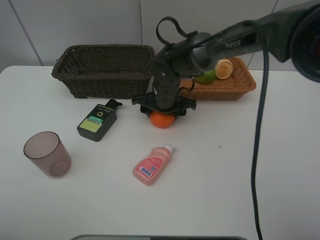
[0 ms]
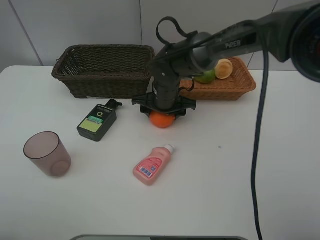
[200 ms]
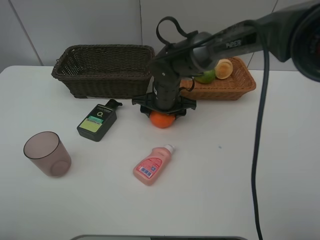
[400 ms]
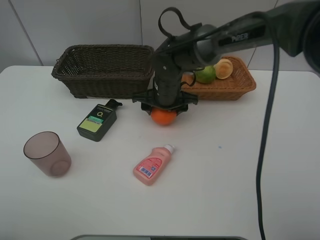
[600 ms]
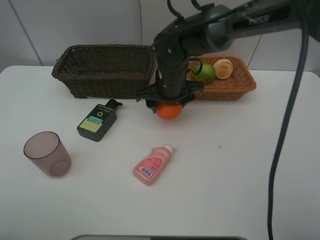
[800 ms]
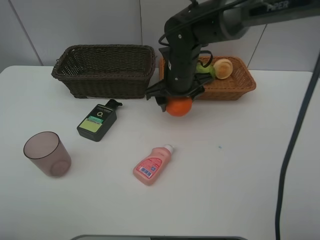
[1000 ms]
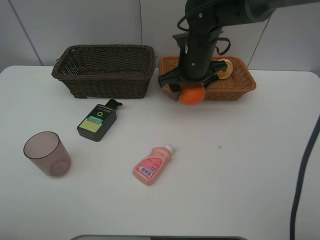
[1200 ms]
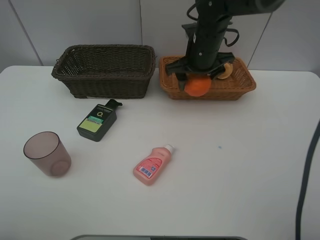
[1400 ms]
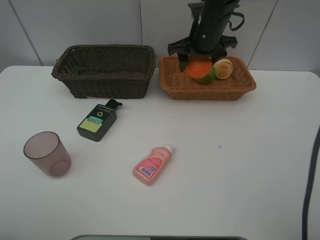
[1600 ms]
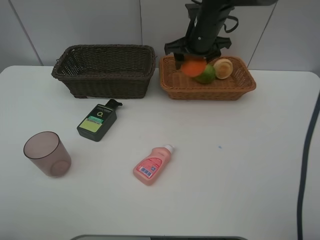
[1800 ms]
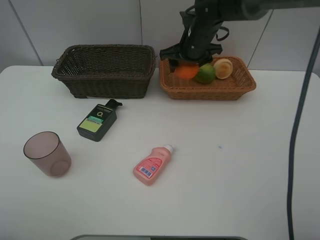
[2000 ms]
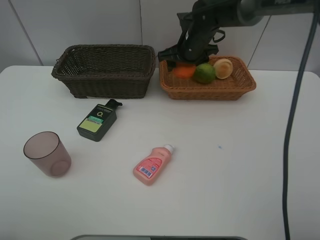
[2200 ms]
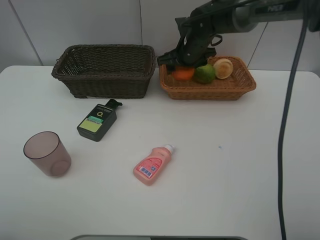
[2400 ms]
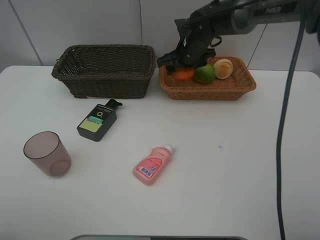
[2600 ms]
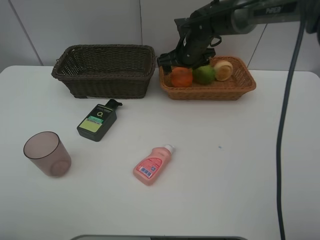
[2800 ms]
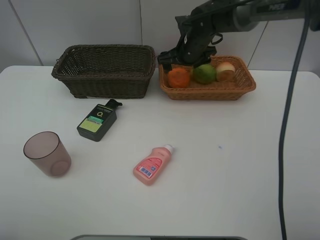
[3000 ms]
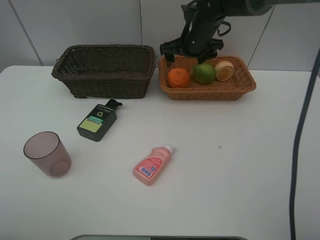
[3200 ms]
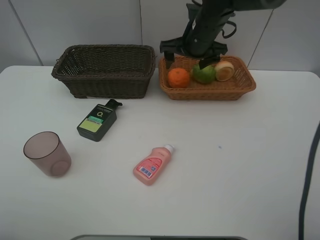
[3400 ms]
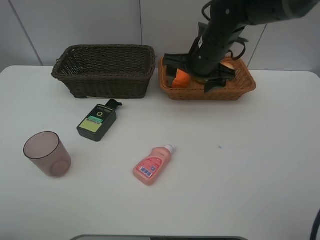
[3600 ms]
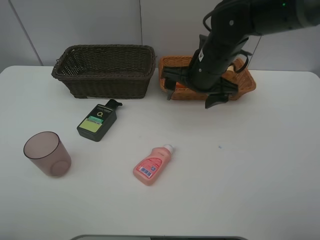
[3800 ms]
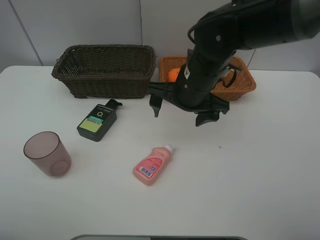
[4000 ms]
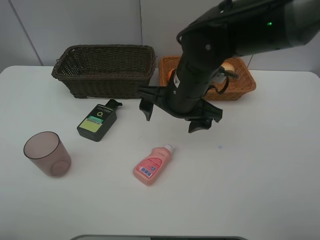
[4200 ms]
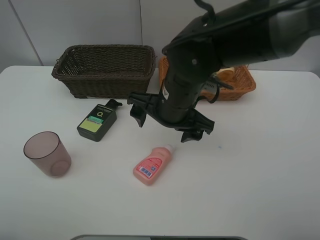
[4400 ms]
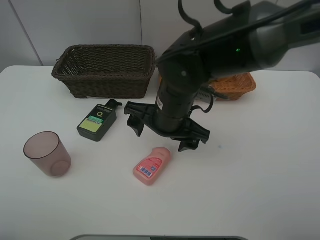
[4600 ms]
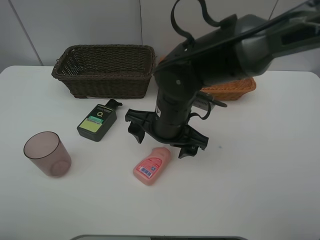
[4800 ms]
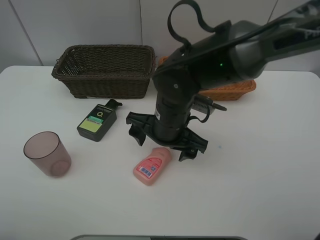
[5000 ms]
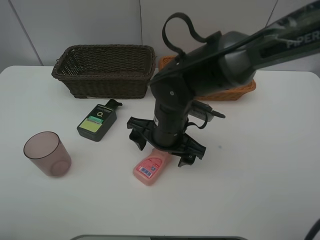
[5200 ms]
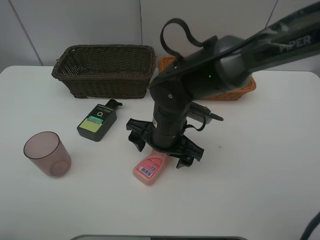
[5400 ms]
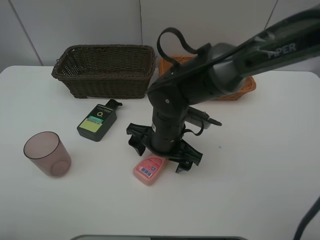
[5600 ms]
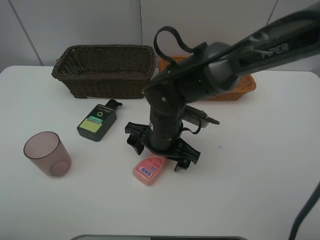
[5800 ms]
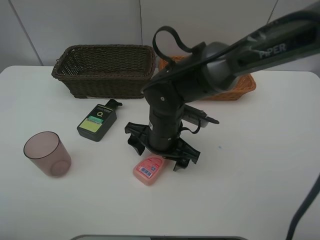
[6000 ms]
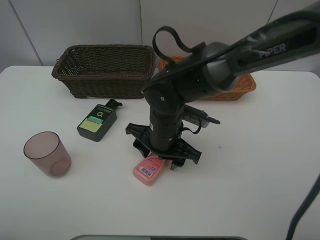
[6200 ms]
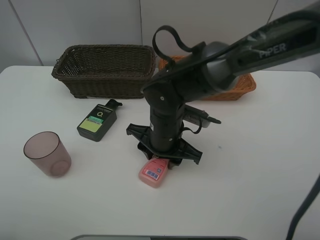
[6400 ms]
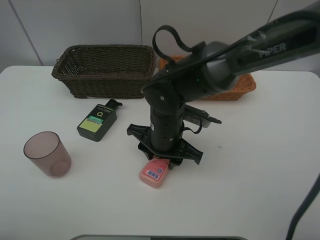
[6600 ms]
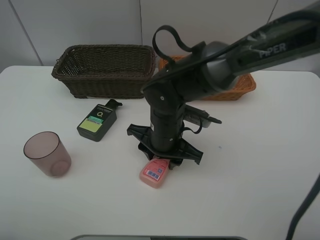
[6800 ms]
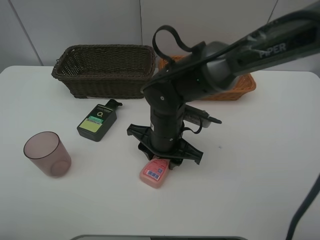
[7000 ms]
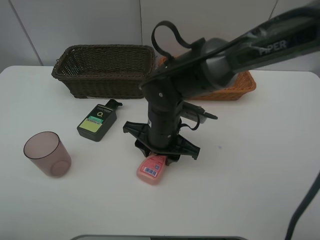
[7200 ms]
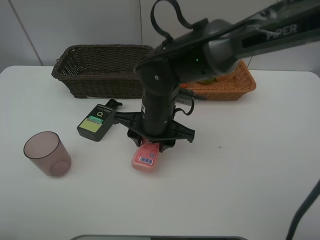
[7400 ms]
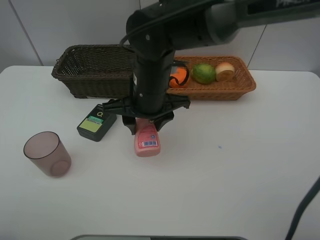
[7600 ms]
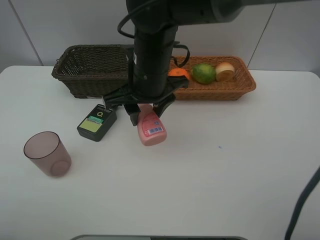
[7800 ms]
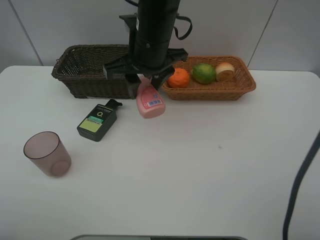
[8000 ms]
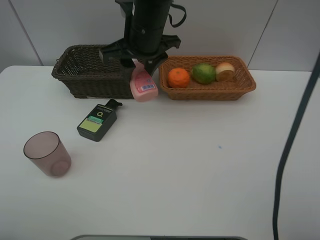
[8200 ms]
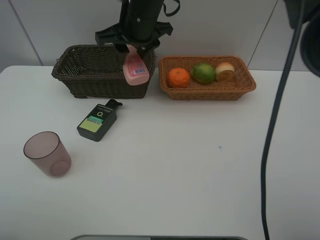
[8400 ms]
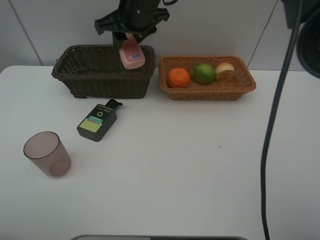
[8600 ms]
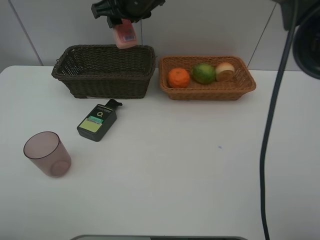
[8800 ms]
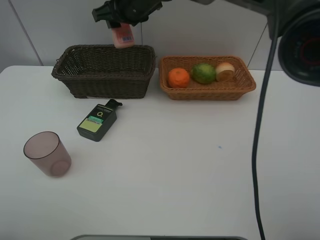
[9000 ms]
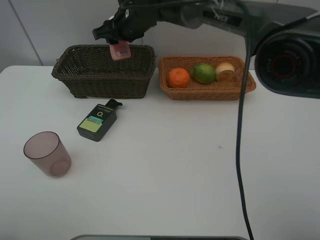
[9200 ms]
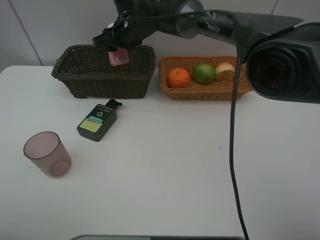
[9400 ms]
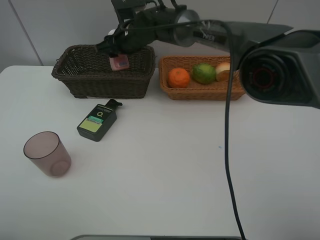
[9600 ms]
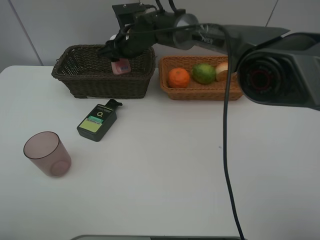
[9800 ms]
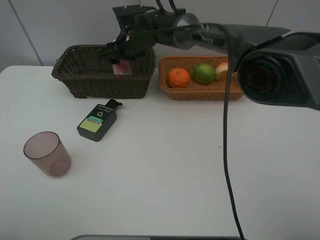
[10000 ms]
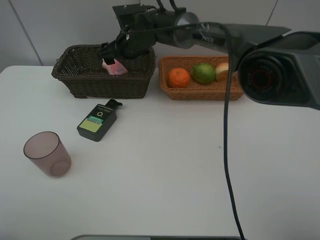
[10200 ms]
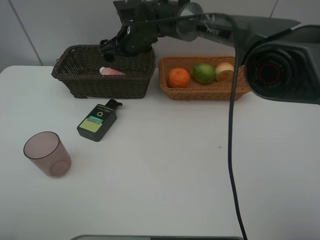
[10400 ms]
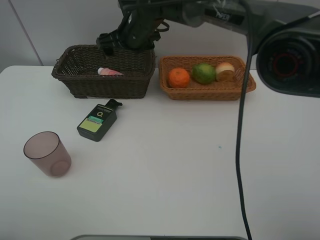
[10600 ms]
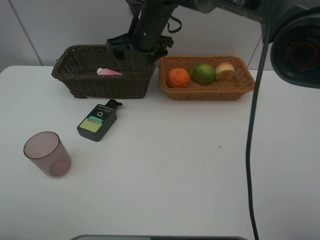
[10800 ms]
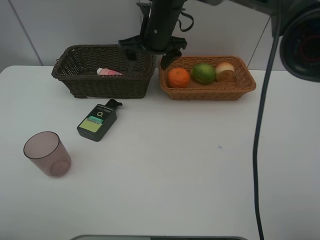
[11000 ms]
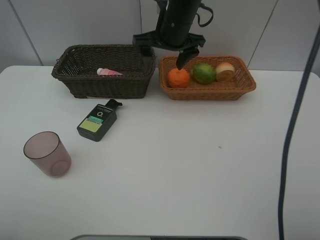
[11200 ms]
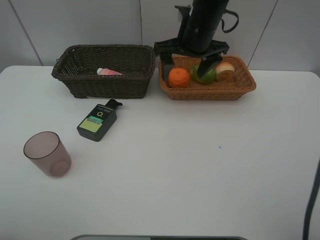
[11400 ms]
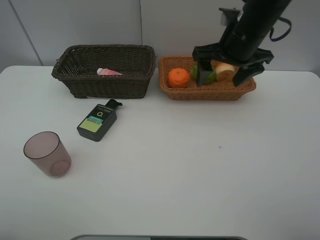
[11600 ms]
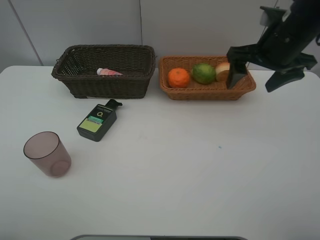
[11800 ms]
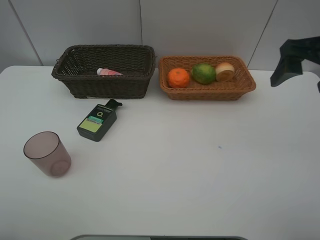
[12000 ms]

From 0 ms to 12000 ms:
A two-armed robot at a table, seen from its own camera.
Task of the whole recording: place multiple objects separately in different baskets.
From 0 ms to 1600 ms: The right gripper heads upward, to the right and forward, covering some 15 cm.
From 1600 ms to 3000 ms: The right gripper goes some 5 cm downward, and opens up.
From 3000 ms to 4400 ms: The right gripper heads backward, covering about 20 cm.
From 4400 ms to 6000 ms: The right gripper moves downward, about 5 cm.
From 6000 ms to 7600 ms: The right gripper moves upward, about 10 cm, and closes up.
From 7600 ms to 9000 ms: The right gripper heads forward and upward, covering roughly 20 cm.
From 9000 ms to 10400 ms: The right gripper is displaced downward by roughly 5 cm, and opens up.
From 10400 ms to 12000 ms: The right gripper moves to the right and backward, some 40 cm.

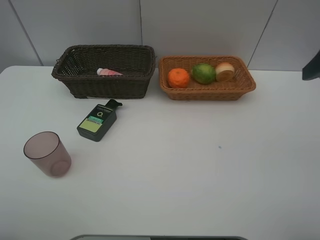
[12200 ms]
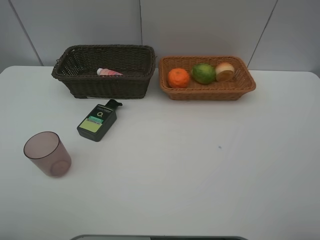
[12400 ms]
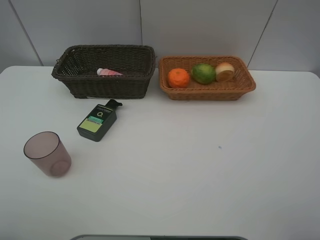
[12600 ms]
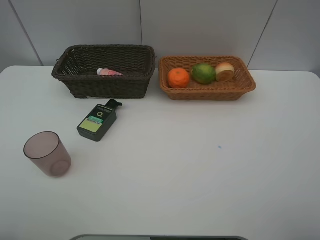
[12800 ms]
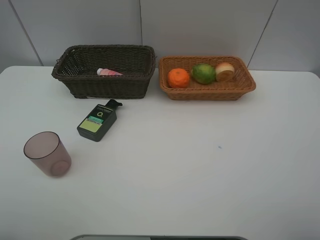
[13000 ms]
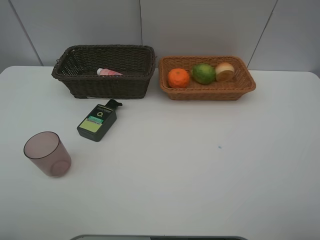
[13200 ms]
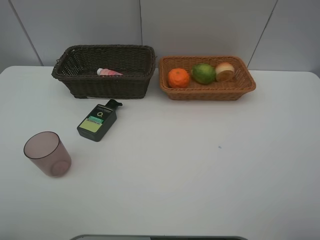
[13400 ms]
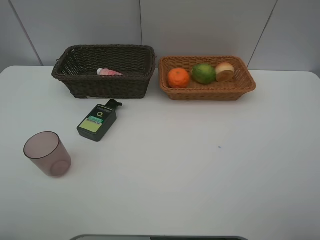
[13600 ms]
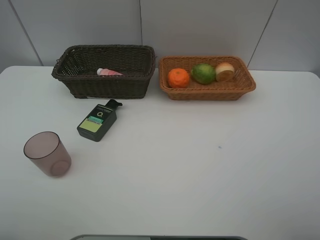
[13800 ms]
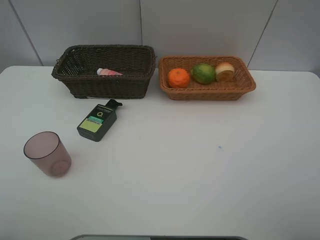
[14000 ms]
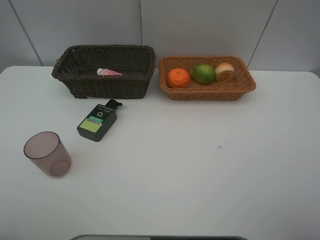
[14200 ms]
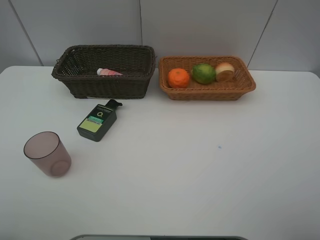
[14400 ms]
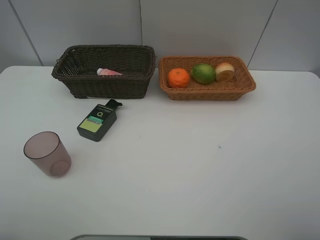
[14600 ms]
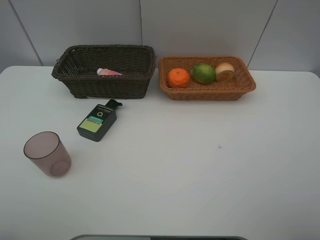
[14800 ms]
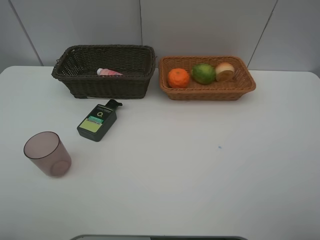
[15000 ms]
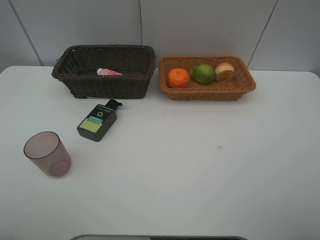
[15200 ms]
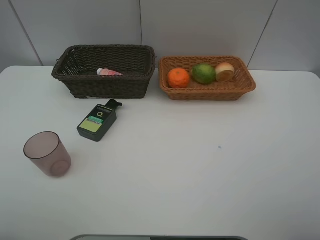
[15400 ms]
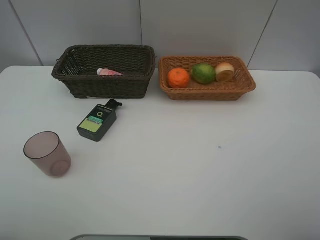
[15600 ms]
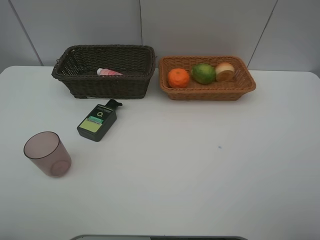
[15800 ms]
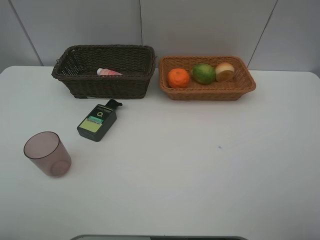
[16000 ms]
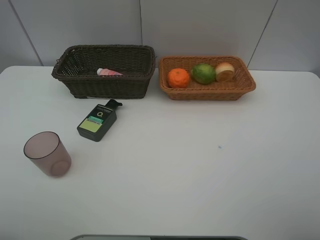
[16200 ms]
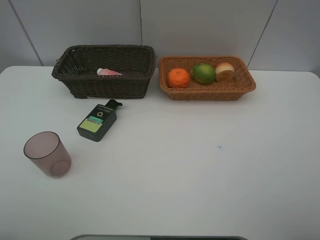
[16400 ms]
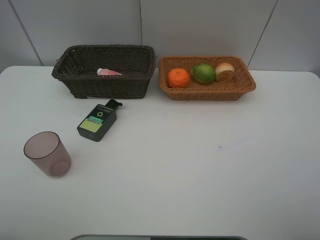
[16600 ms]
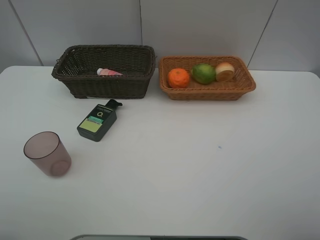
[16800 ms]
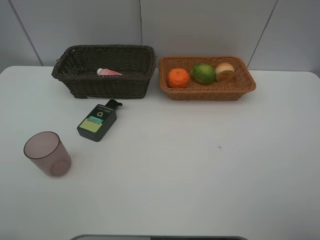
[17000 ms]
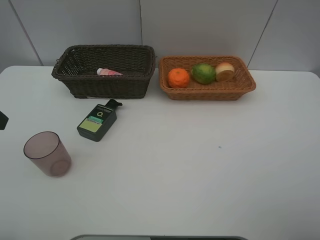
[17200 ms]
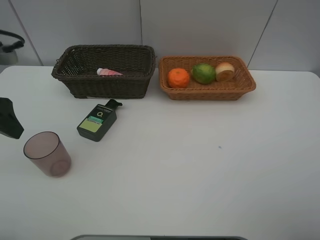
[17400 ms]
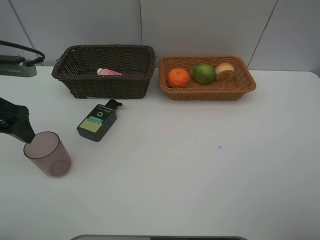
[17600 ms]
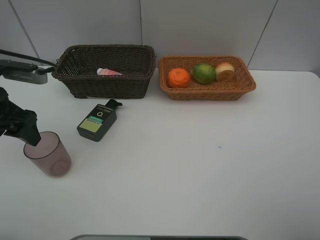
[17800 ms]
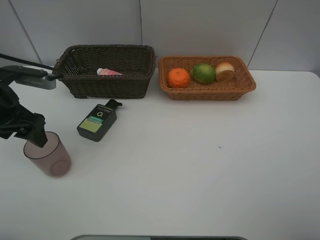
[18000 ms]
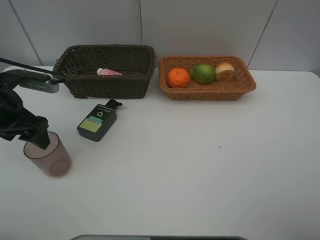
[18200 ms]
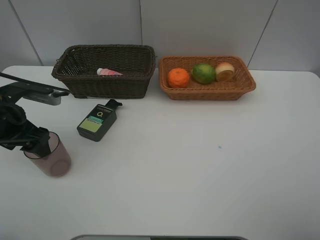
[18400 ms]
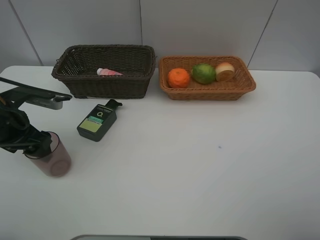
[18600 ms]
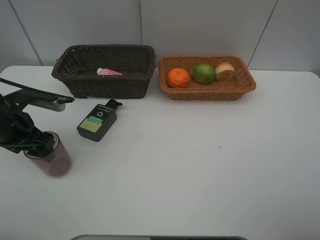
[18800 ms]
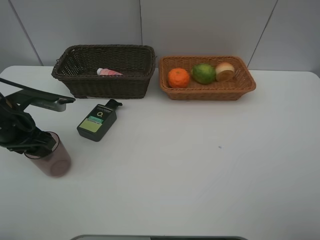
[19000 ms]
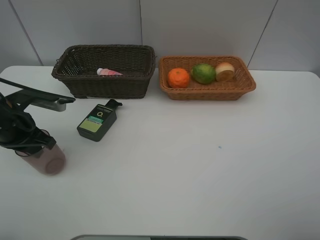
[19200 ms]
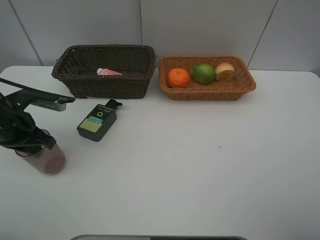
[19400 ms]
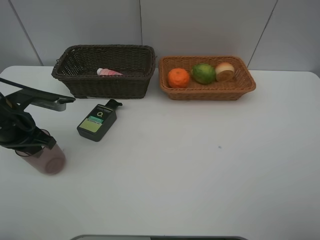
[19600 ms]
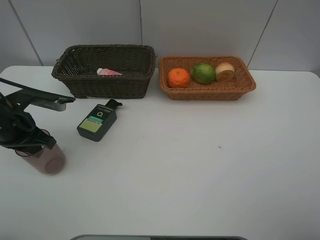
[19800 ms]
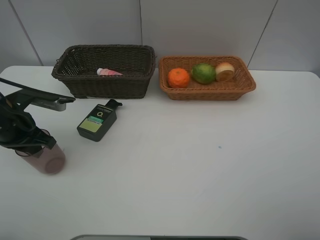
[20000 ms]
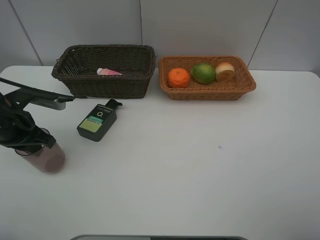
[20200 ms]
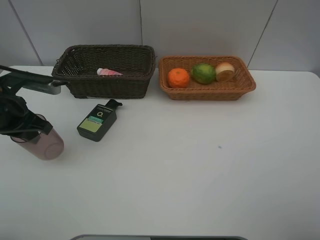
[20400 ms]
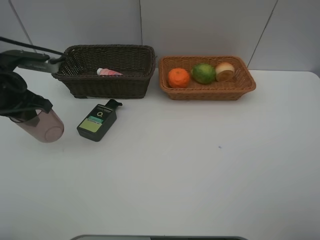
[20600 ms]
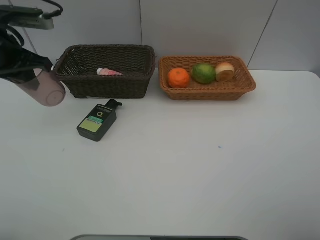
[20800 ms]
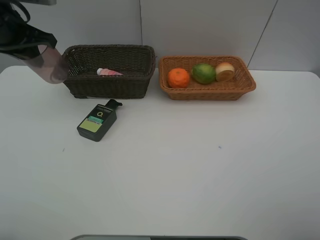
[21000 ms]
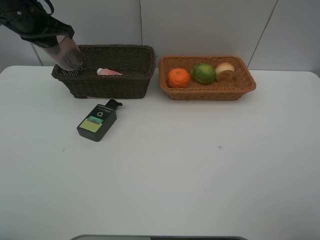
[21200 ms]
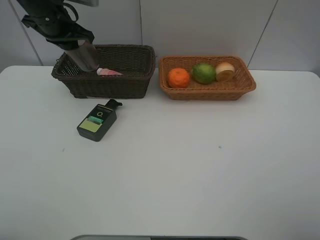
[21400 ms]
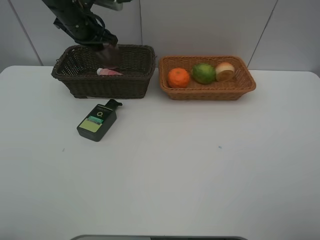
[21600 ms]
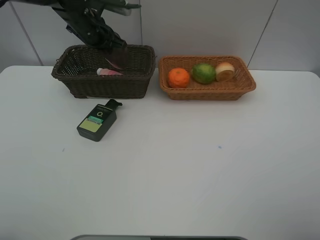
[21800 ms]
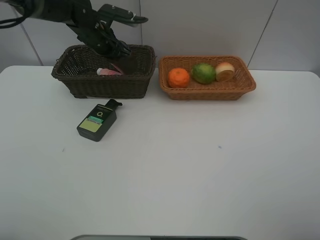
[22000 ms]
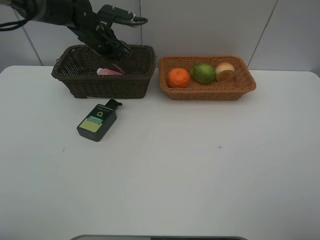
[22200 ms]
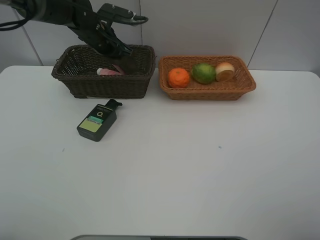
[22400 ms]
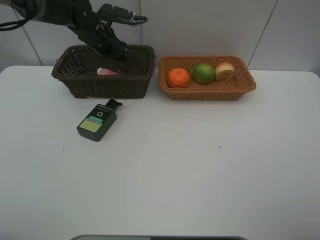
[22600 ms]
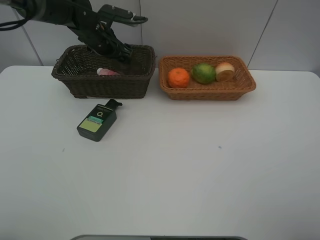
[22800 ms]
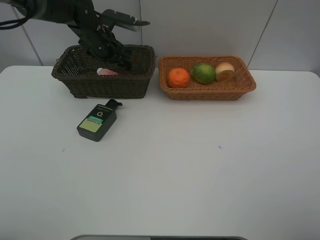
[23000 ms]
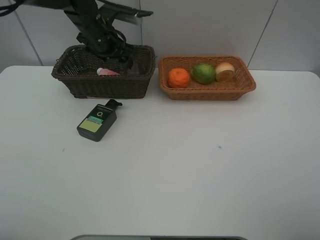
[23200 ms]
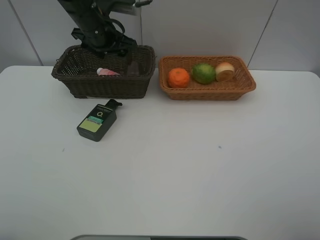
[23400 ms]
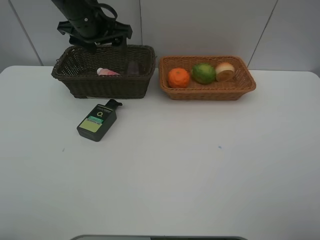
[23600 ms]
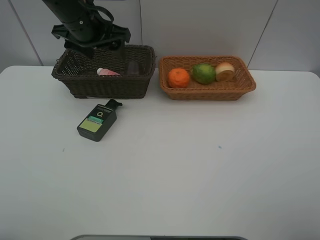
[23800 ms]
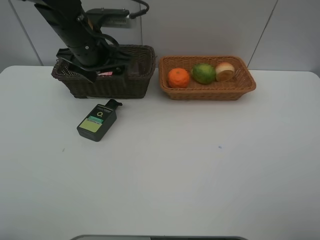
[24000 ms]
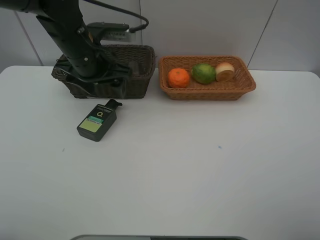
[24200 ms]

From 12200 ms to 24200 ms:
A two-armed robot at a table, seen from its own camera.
Task of the whole recording: place multiple objects separately in different baskets.
From 15200 ms to 16600 ms: Neither gripper changes place.
From 16600 ms to 18200 ms: The left gripper shifts approximately 25 cm forward and downward.
From 18200 ms to 19800 ms: The left gripper closes its fingers.
From 19800 ms to 21200 ms: The left gripper travels forward and upward by roughly 20 cm.
From 21200 ms to 22600 ms: The left gripper shifts about 15 cm to the right, downward and forward, and opens up.
From 22600 ms to 24200 ms: The left gripper is displaced backward by about 15 cm.
